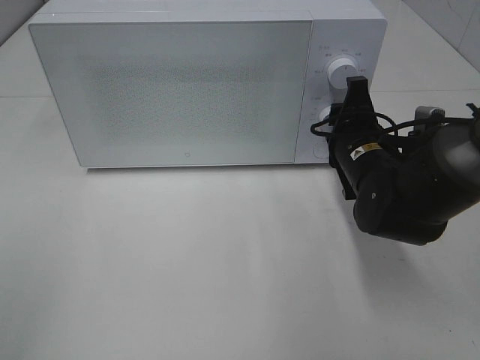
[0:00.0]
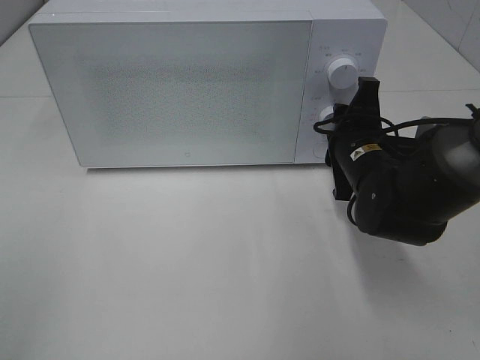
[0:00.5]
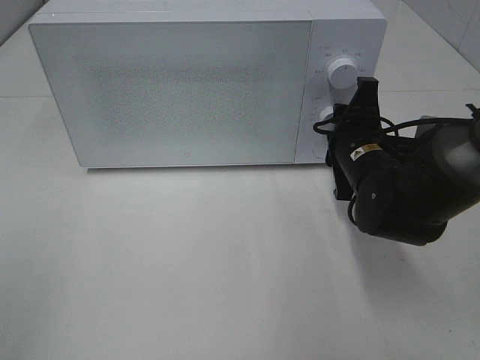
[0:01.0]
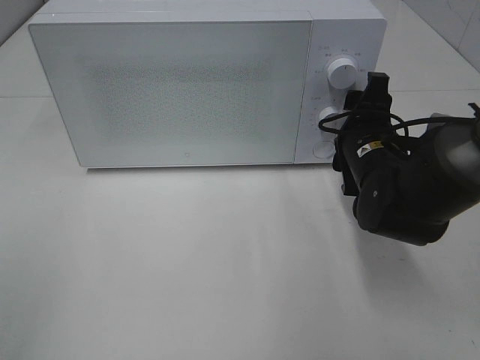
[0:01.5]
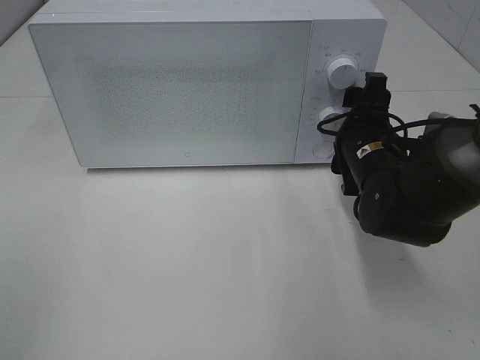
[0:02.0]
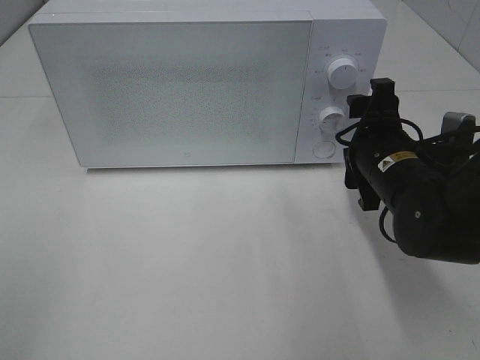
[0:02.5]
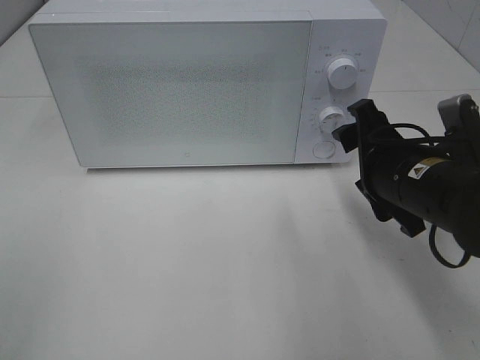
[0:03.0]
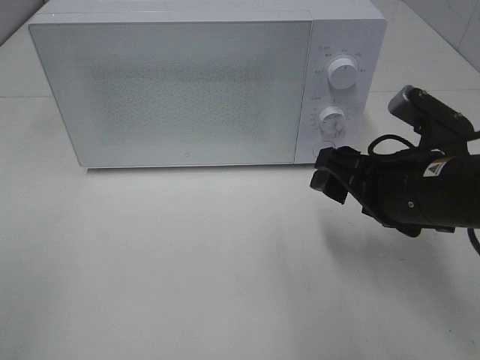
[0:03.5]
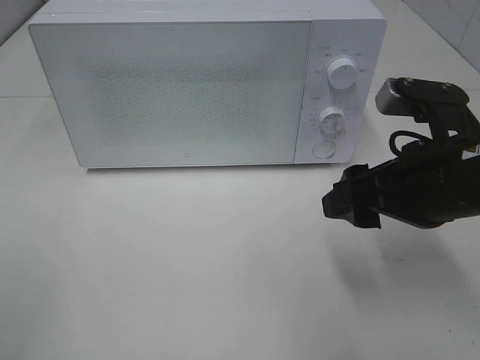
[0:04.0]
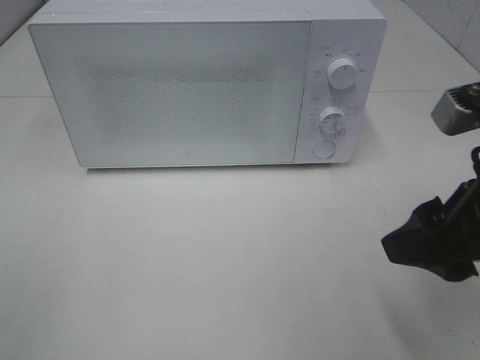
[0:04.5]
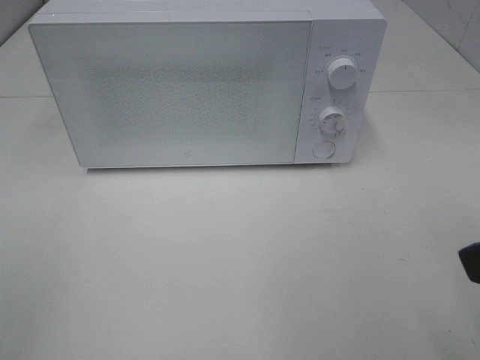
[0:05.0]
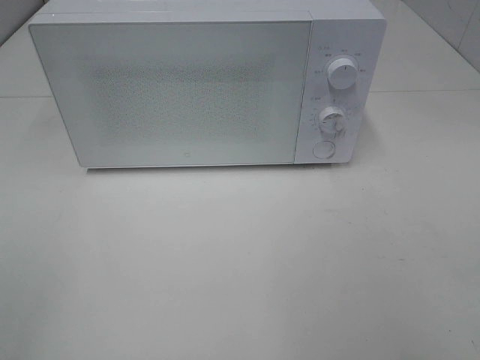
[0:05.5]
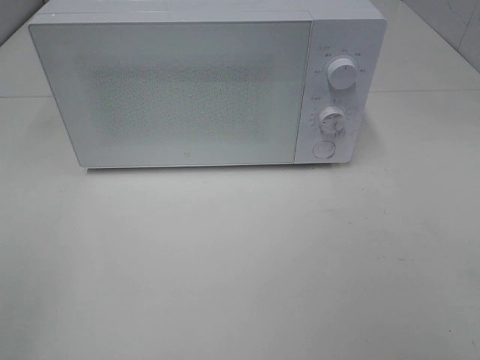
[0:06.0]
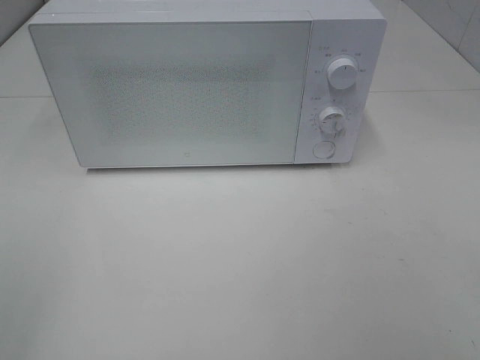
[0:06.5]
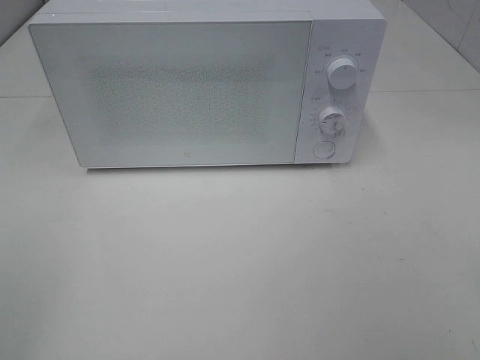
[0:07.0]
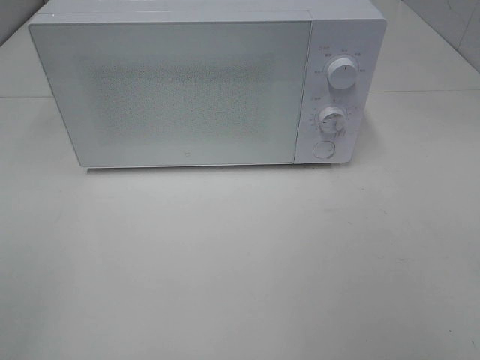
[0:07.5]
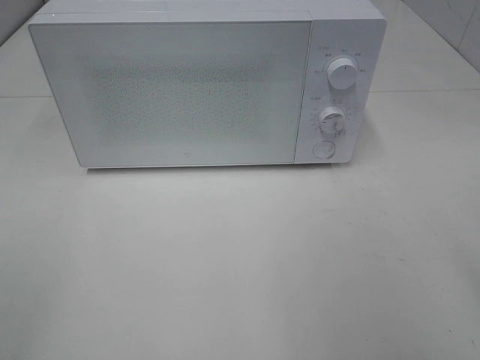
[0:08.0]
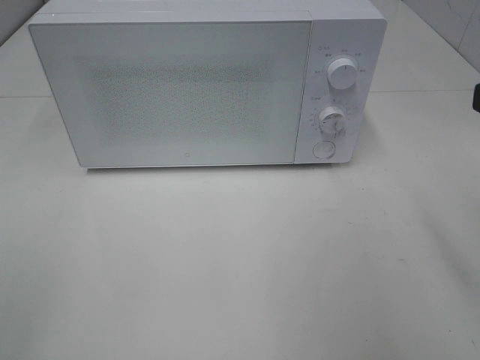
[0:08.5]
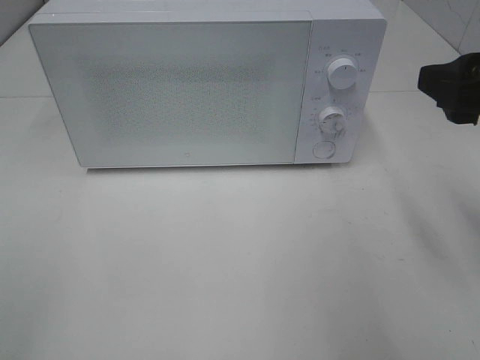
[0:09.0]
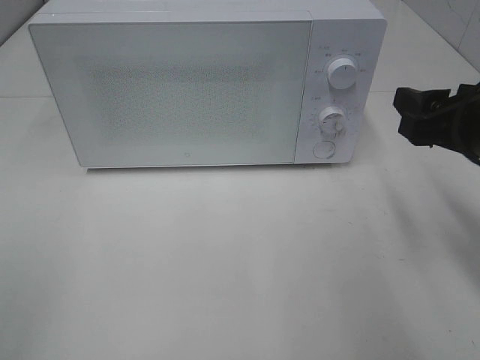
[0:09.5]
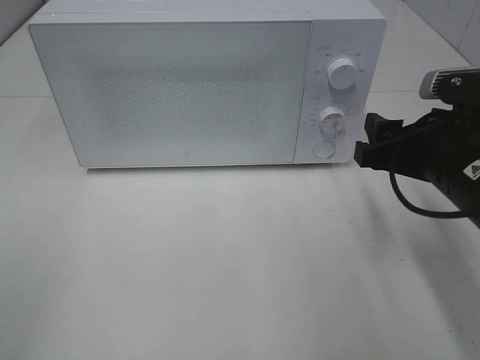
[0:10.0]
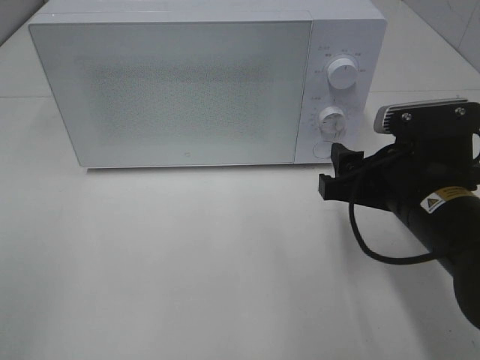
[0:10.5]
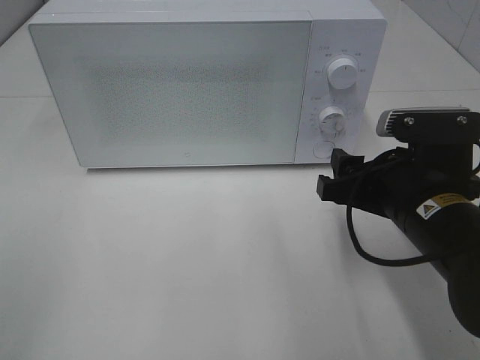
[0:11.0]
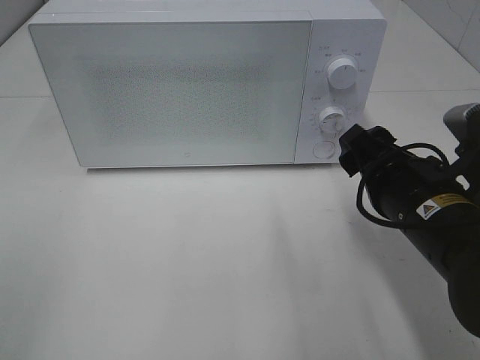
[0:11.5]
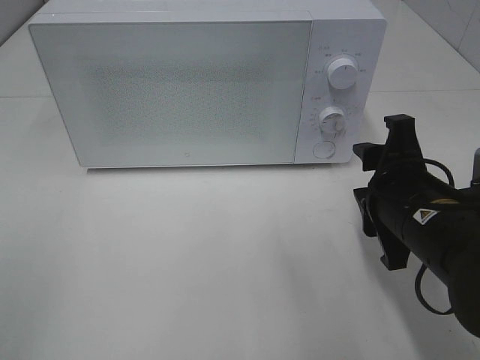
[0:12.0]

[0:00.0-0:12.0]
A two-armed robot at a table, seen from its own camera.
Task of the whole recording: Heat Sandwich.
0:00.0 to 0:02.0: The right gripper opens its fingers.
0:02.0 to 0:04.0: The right gripper is displaced backward and upward by roughly 15 cm.
0:04.0 to 0:06.0: The right gripper is displaced backward, to the right and upward by roughly 25 cm.
0:08.0 to 0:10.0: The right gripper travels forward, downward and to the left by roughly 20 cm.
0:10.0 to 0:12.0: The right gripper changes place by some 5 cm.

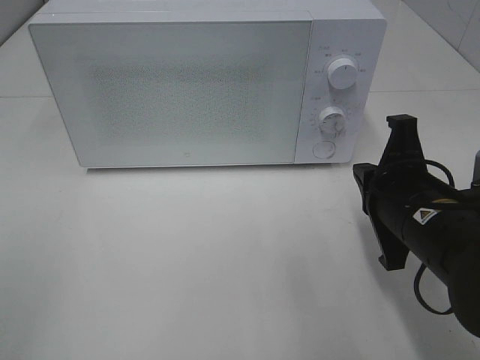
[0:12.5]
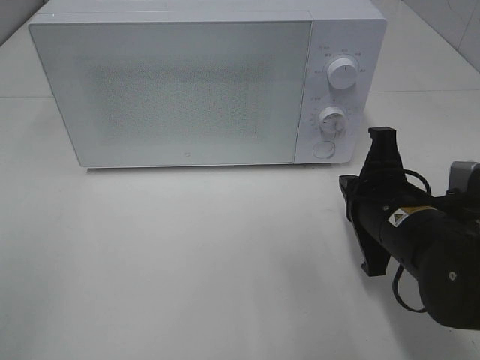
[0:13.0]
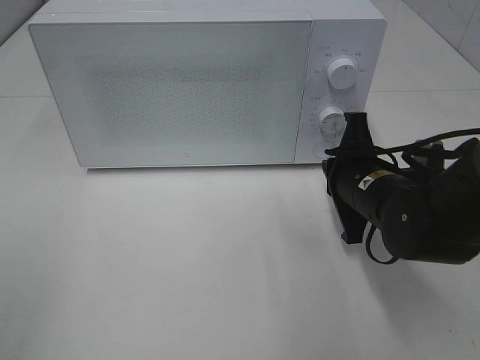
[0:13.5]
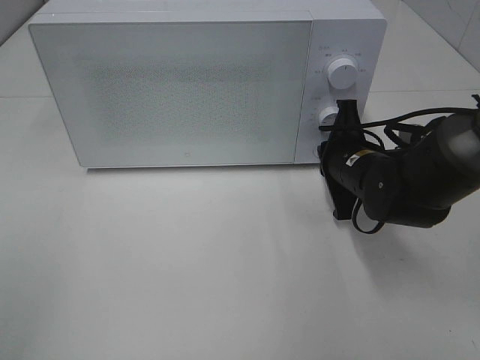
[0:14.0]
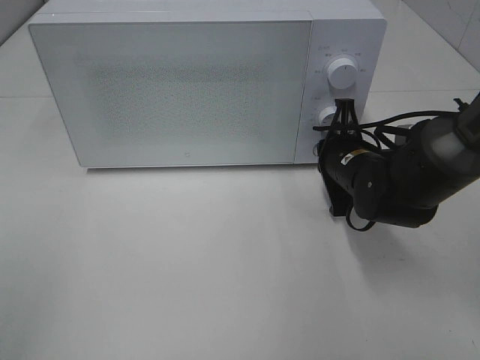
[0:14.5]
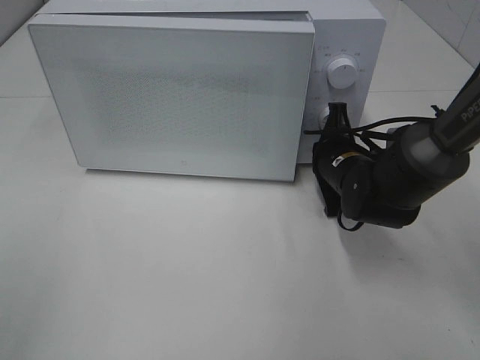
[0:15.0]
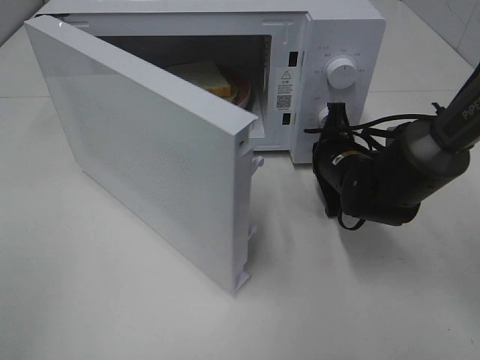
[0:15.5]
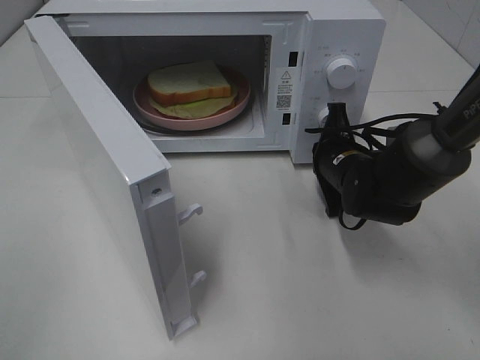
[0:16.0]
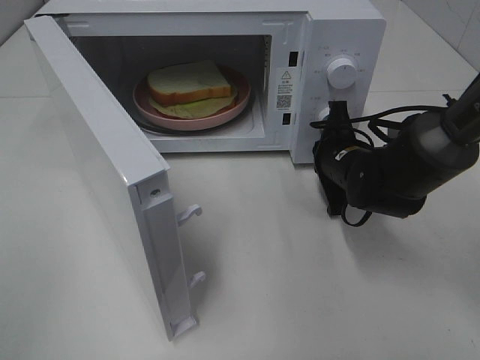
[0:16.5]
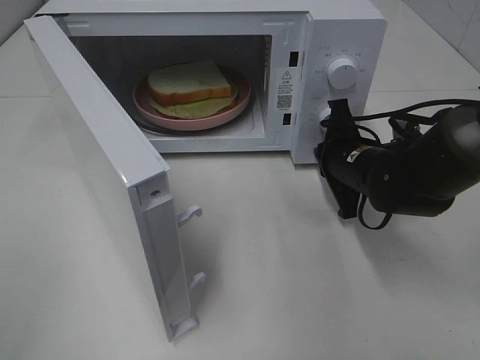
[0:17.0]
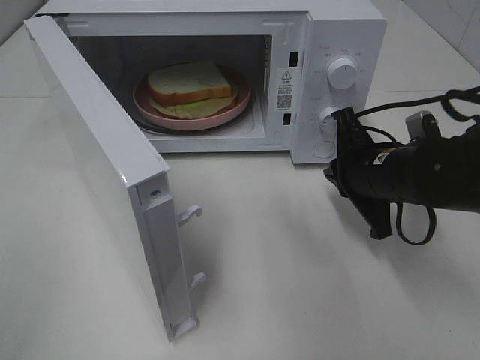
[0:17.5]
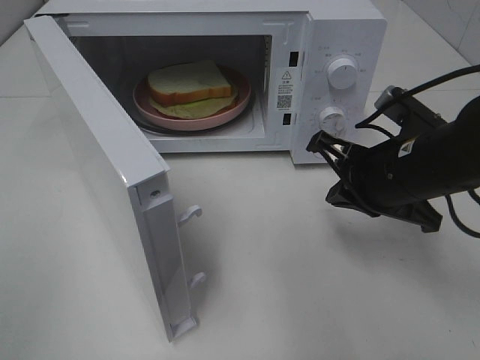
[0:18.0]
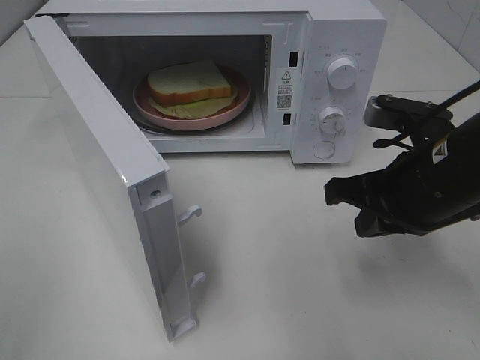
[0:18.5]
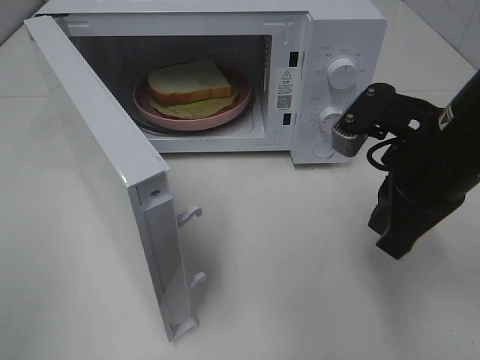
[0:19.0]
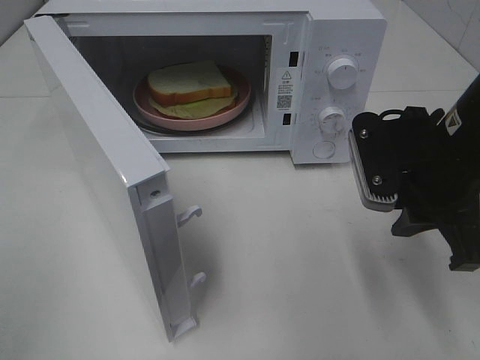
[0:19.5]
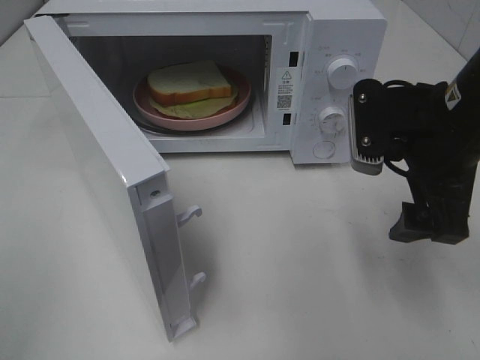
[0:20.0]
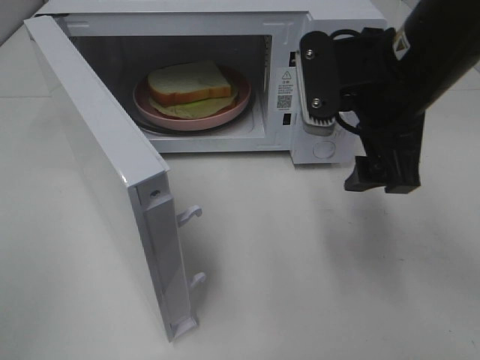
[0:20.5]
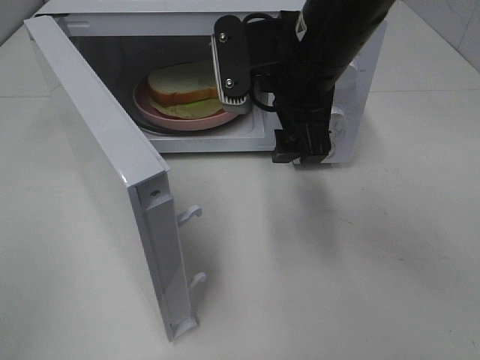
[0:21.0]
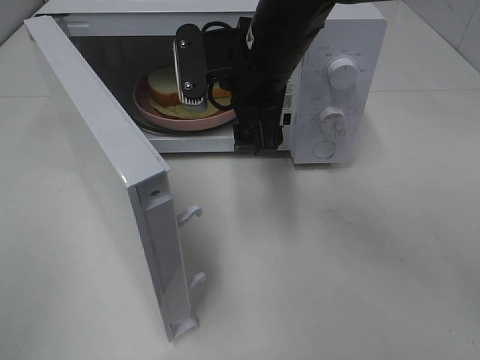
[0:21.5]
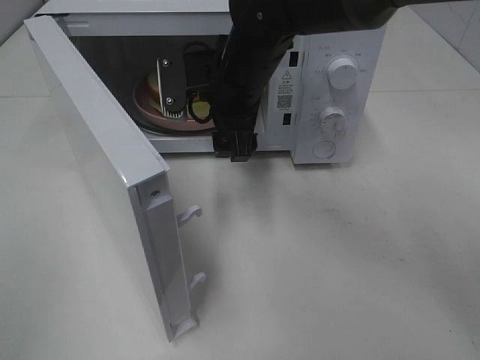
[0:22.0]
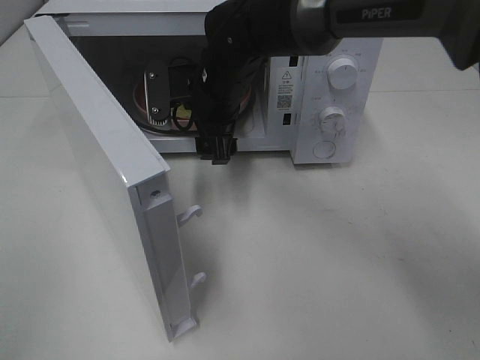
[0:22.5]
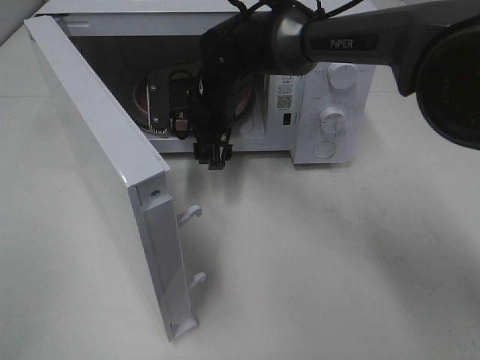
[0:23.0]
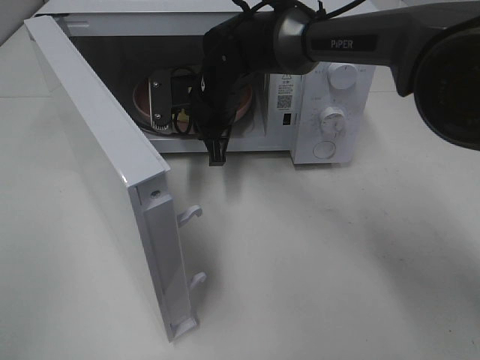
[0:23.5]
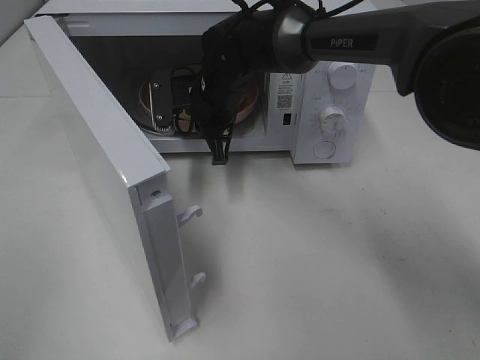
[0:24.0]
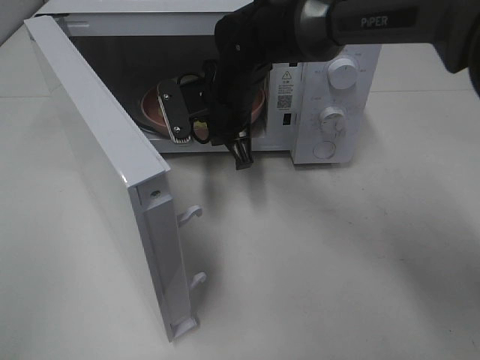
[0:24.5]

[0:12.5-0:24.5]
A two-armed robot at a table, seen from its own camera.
Task of the whole recording: Heat Sandwich.
Step, 0:12.5 to 0:17.0: Right hand: press the switch.
Step, 0:17.5 to 0:22.5: Right hand: grab the plate with the sandwich.
0:12.5 to 0:14.5: The right gripper travels forward and downward by approximately 15 cm.
0:16.5 to 0:18.5: The right gripper is displaced backward and upward by some 15 cm.
0:18.5 to 0:20.5: The right gripper shifts approximately 10 cm upward, and opens up.
0:20.5 to 0:22.5: The right gripper heads to the left, forward and downward, covering approximately 20 cm.
0:22.5 to 0:24.5: The right gripper closes up.

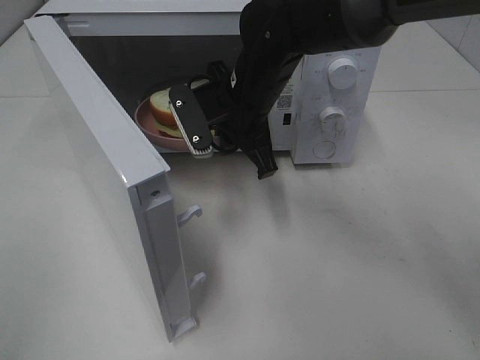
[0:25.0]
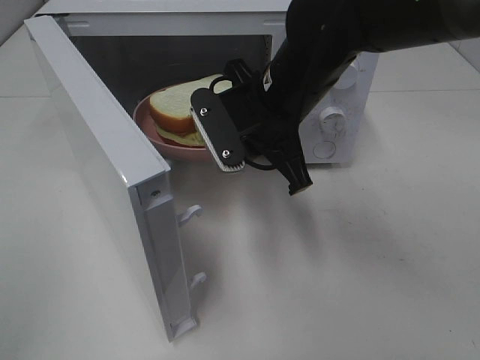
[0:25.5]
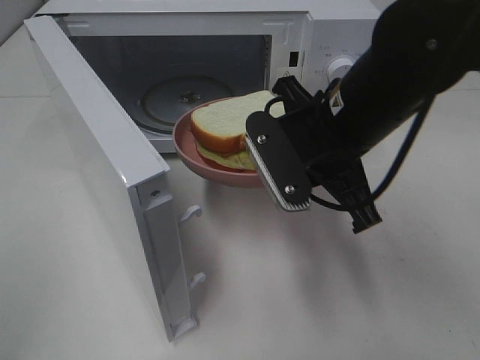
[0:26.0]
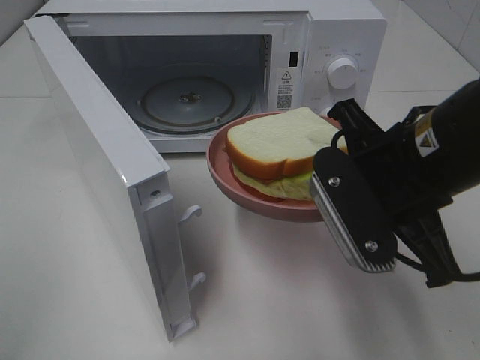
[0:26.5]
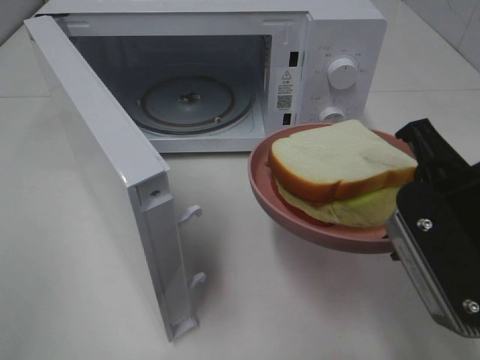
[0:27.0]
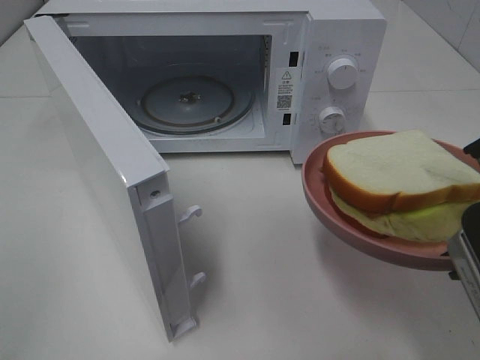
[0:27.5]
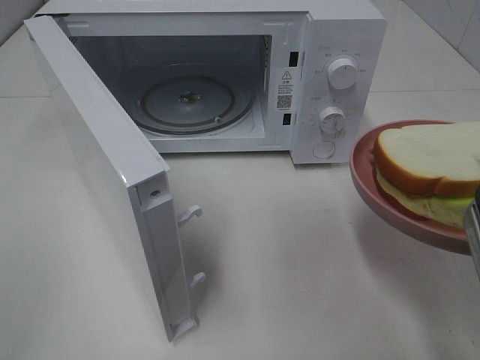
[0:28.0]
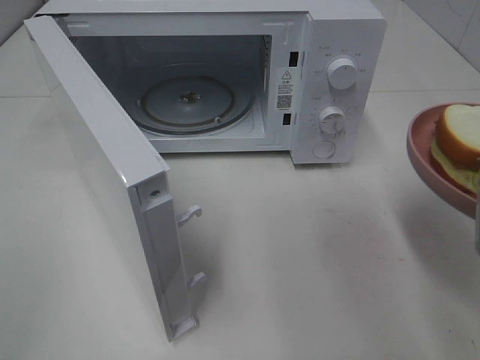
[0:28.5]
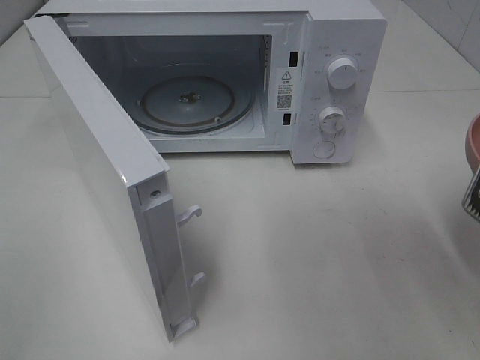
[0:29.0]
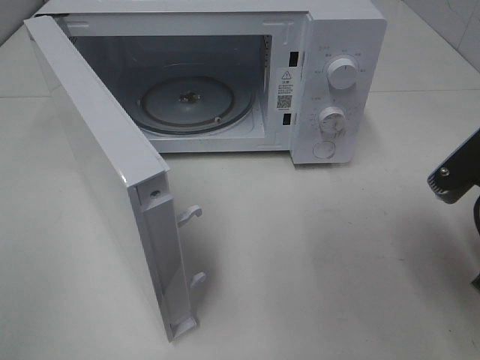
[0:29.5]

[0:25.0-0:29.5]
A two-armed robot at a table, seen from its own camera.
Task of the whole recording: Heat Sandwich.
0:25.0 to 0:27.0: The right gripper travels backward and to the right by approximately 25 cm.
0:27.0 to 0:29.5: The right gripper shifts approximately 5 cm to the right.
